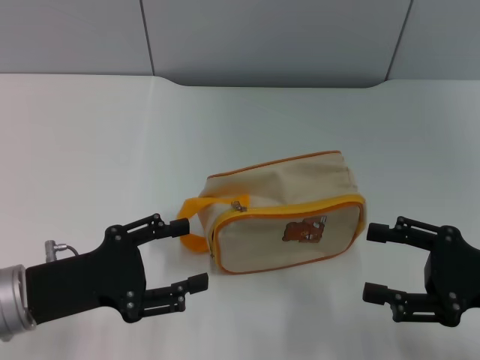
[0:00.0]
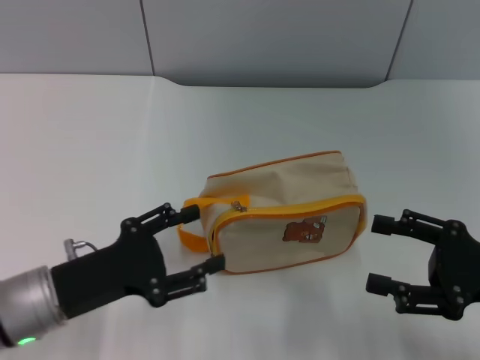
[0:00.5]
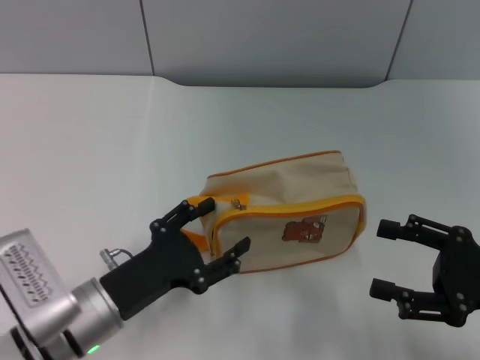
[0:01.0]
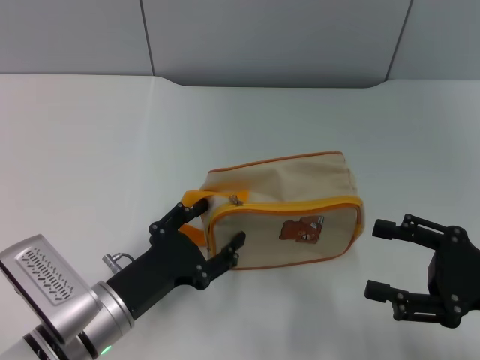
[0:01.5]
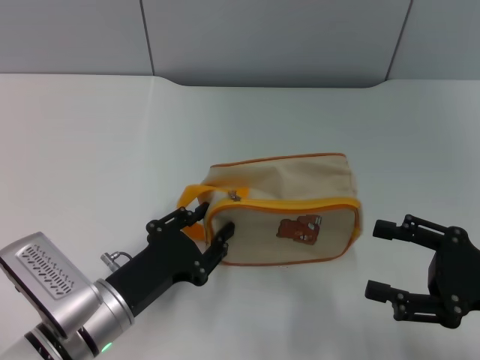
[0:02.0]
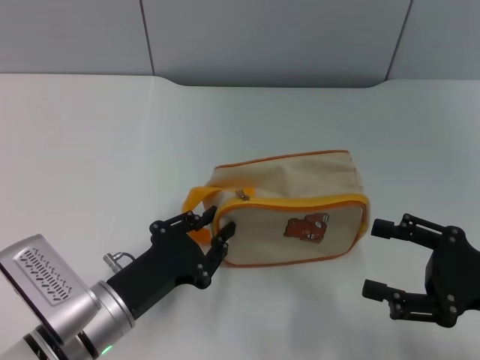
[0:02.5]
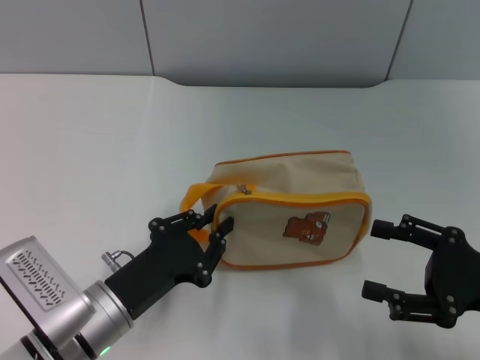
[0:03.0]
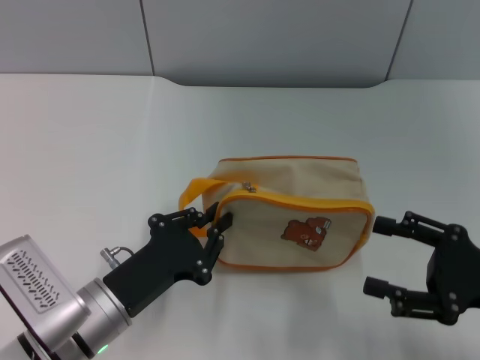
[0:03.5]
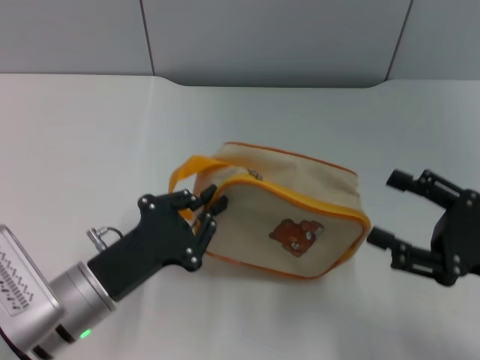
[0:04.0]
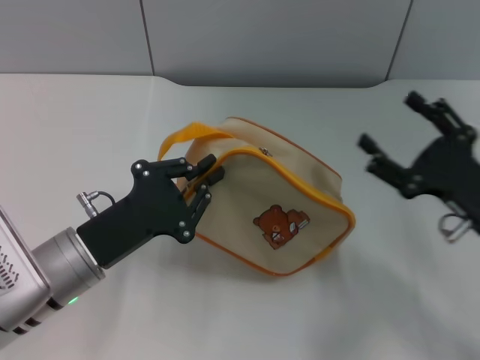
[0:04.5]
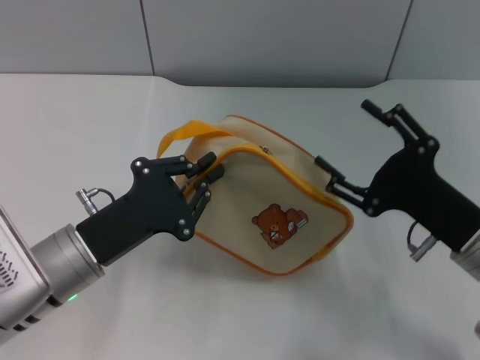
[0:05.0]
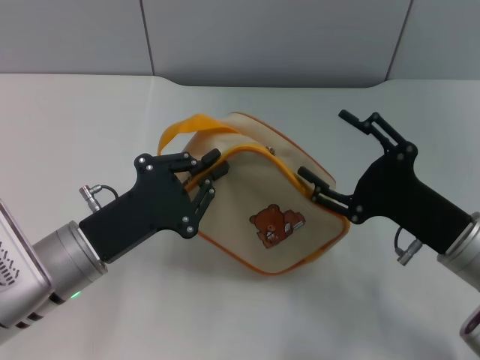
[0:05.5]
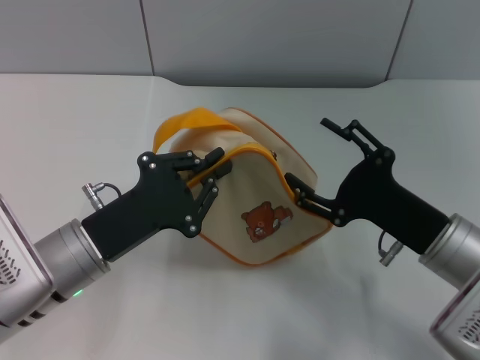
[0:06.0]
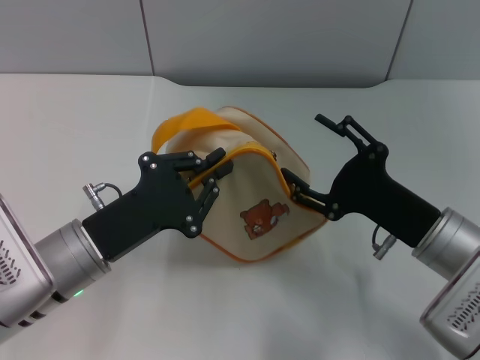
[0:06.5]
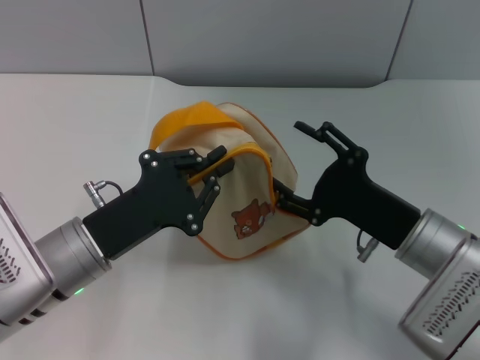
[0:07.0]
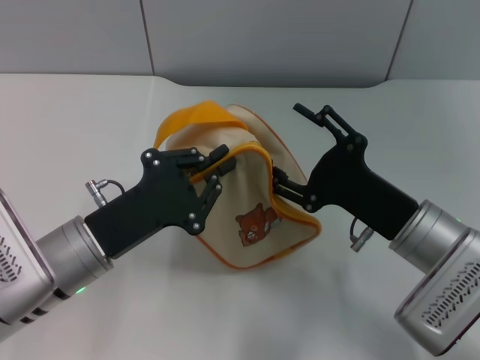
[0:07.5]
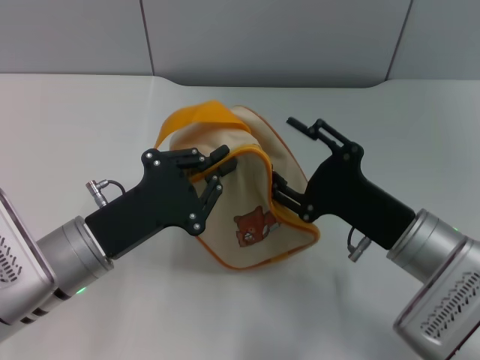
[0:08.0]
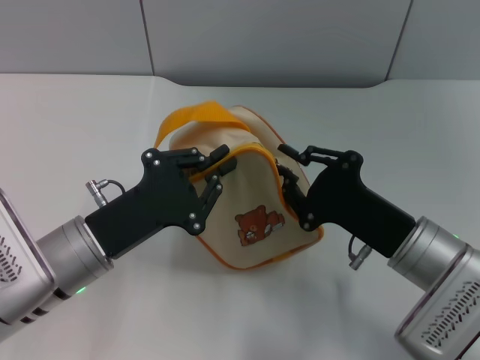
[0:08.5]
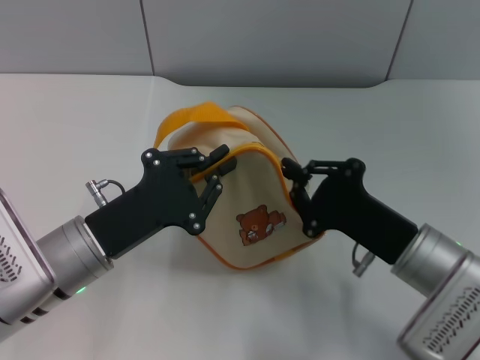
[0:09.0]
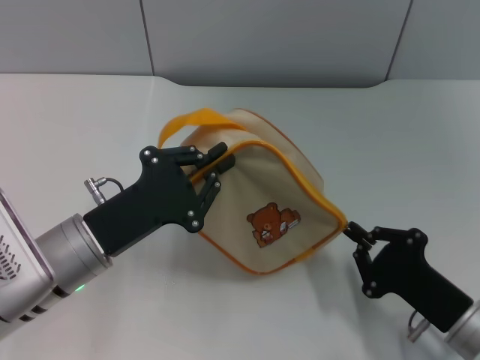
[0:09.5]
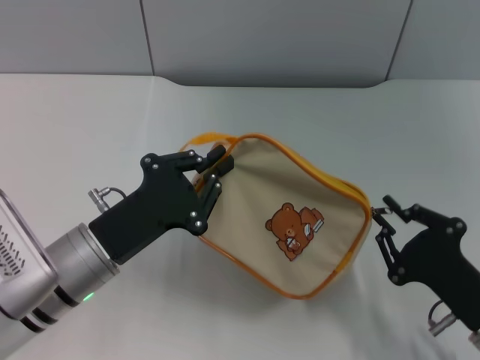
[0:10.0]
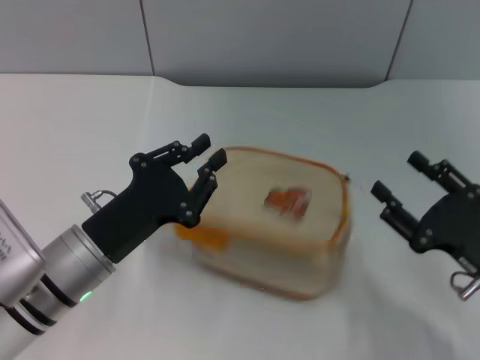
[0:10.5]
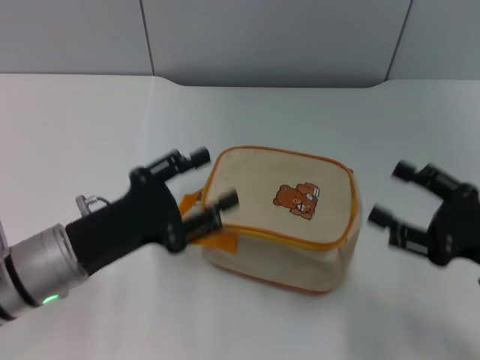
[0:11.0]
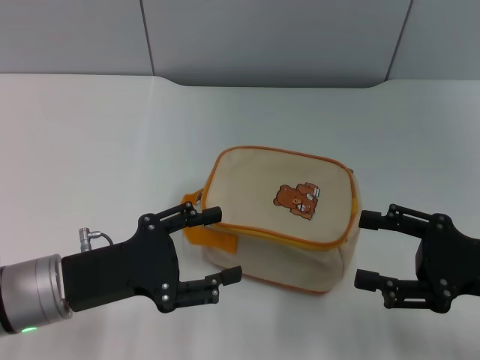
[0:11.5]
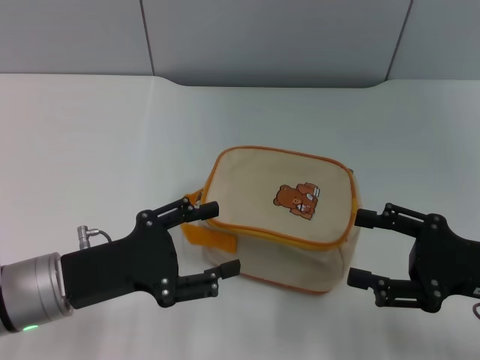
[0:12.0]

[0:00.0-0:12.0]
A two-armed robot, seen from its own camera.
Step, 0:00.0 to 0:04.5: Pick up the bag with left gripper.
Step, 0:05.0 to 0:10.0: Unzip the zipper of bag with right gripper.
0:00.0 to 0:02.0: The left gripper moves to the right and downward, roughly 10 cm.
0:02.0 to 0:04.0: The left gripper closes its fingers.
0:04.0 to 0:06.0: The right gripper goes roughly 10 cm to the left.
0:06.0 to 0:08.0: There are only small adjustments of the grippers.
0:08.0 to 0:10.0: The right gripper moves backward and to the right, approximately 10 cm, and closes up.
0:10.0 to 0:12.0: The left gripper opens. The right gripper is displaced upward and forward by roughly 10 cm, and opens.

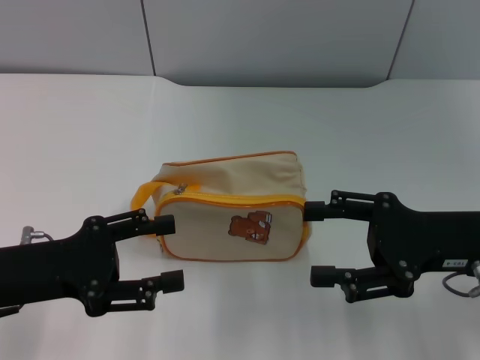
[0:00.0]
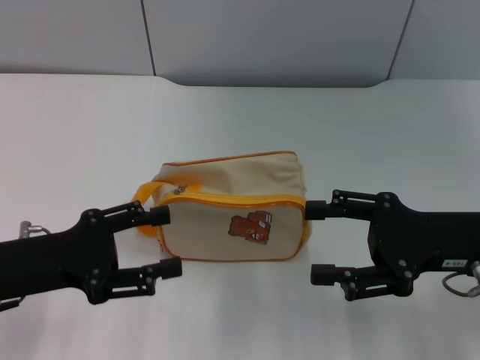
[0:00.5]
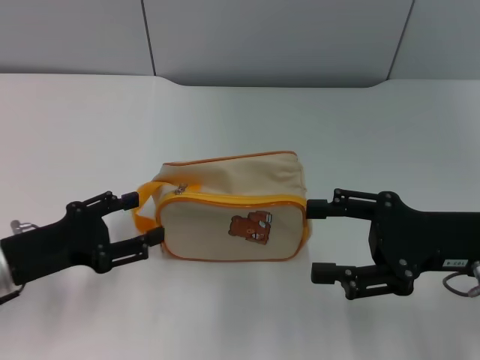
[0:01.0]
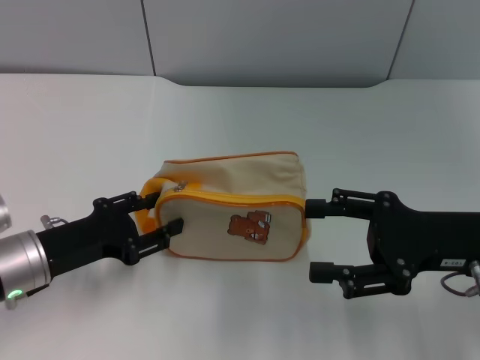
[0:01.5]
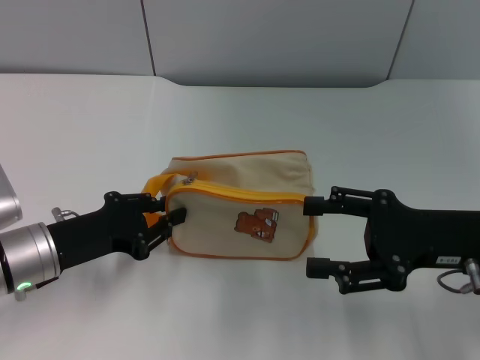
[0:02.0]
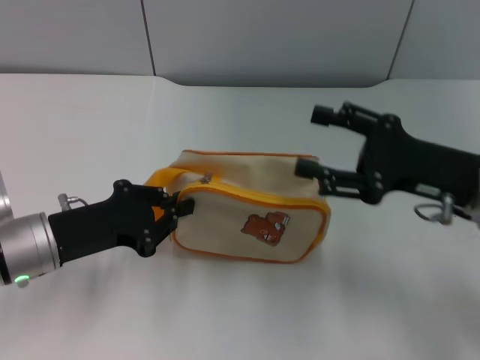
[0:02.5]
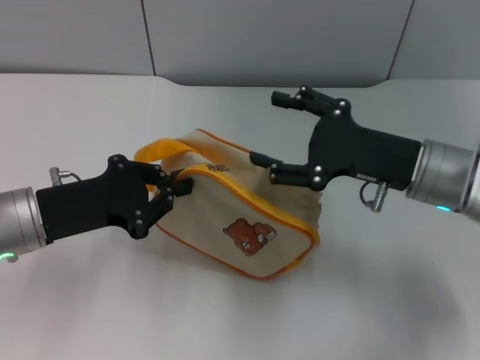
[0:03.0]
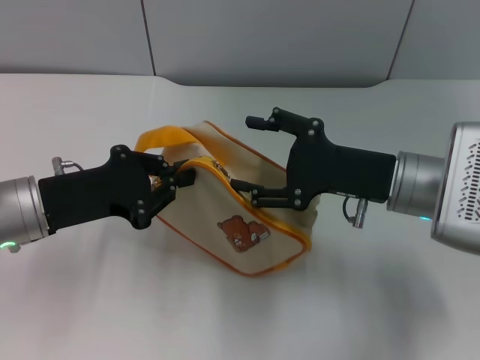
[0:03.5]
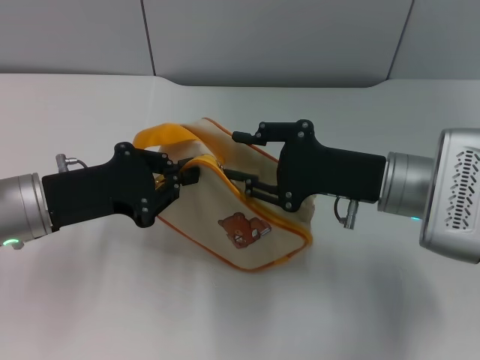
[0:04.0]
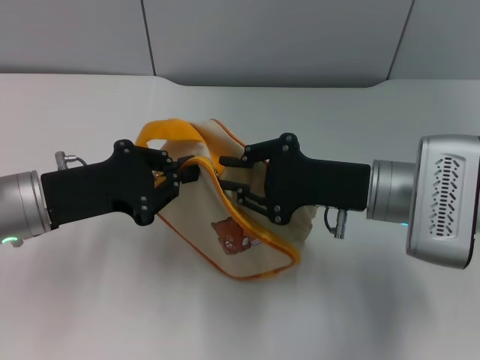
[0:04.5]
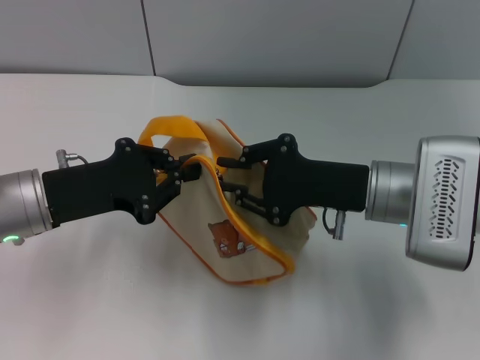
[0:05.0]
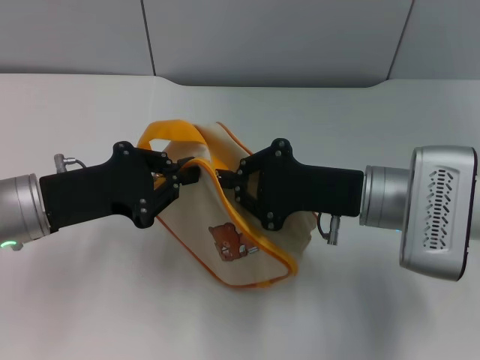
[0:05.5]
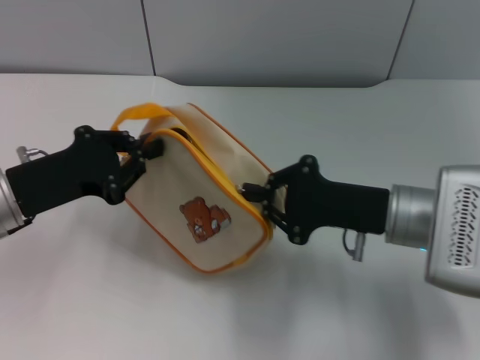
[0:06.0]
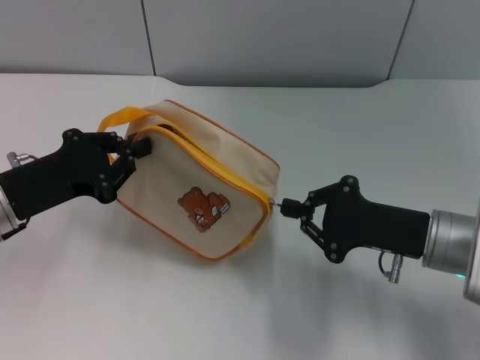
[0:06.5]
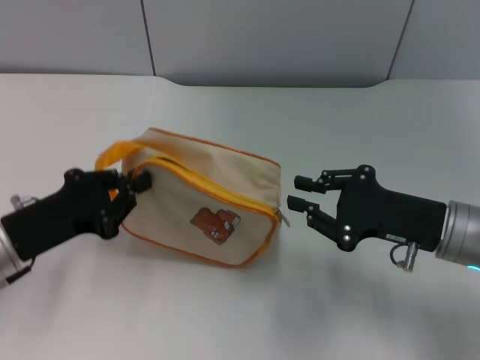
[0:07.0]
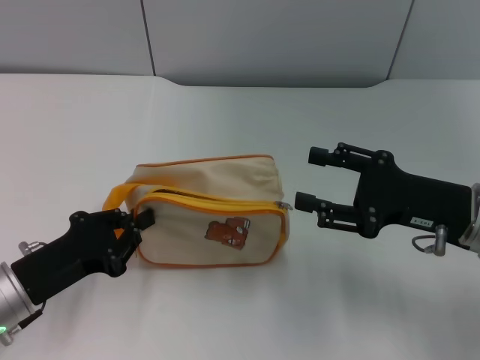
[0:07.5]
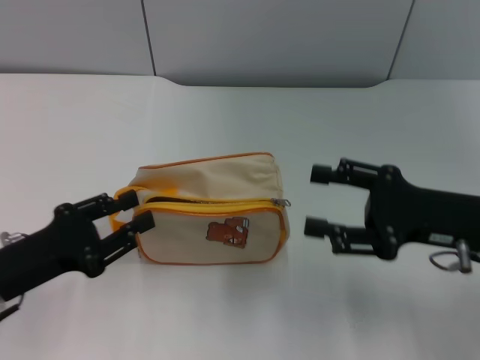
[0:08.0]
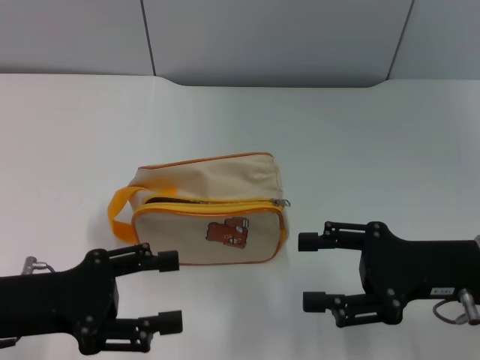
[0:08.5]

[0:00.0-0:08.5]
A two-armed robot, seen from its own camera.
Step, 0:00.0 to 0:02.5: Pick up the bag with left gripper.
Step, 0:03.0 to 0:06.5: Unzip the zipper of bag with right gripper.
Step, 0:07.0 to 0:08.0: Place the bag on the table with left gripper.
0:00.0 to 0:02.0: The left gripper ends up roughly 5 cm from where it was, and closes its fingers.
0:02.0 to 0:04.0: The right gripper shifts approximately 10 cm to the left and forward. The left gripper goes approximately 5 cm upward, and closes its fingers.
0:04.0 to 0:06.5: The right gripper shifts by about 5 cm, and closes up.
0:06.5 to 0:08.5: The right gripper opens up. Meanwhile the left gripper is displaced backward by roughly 5 cm, and opens up.

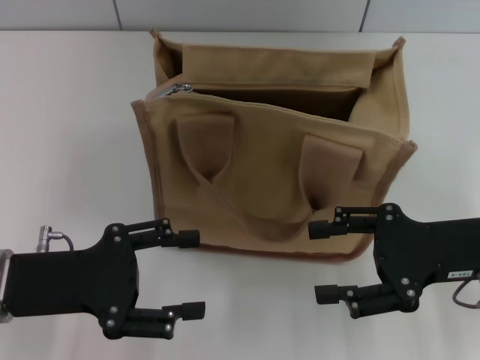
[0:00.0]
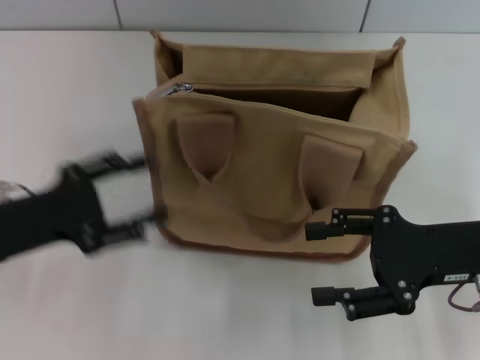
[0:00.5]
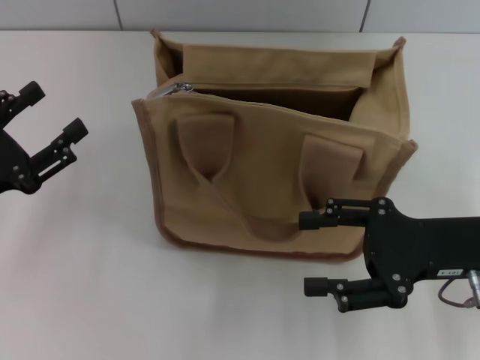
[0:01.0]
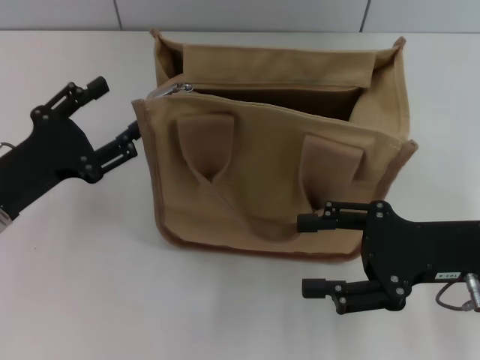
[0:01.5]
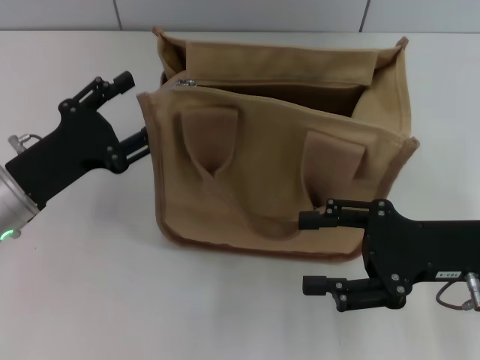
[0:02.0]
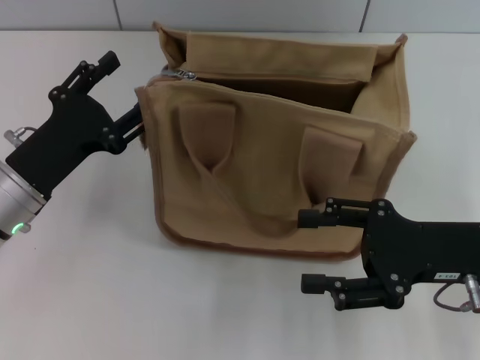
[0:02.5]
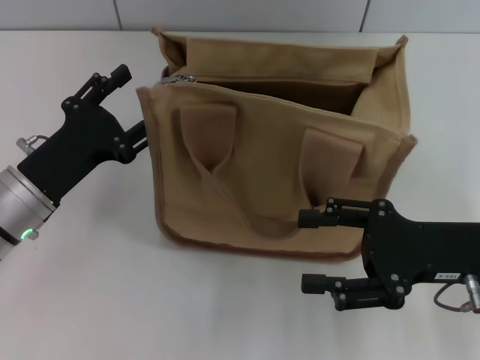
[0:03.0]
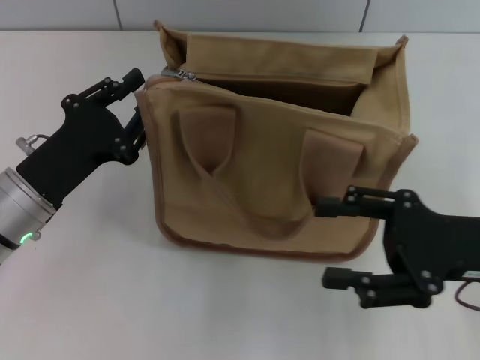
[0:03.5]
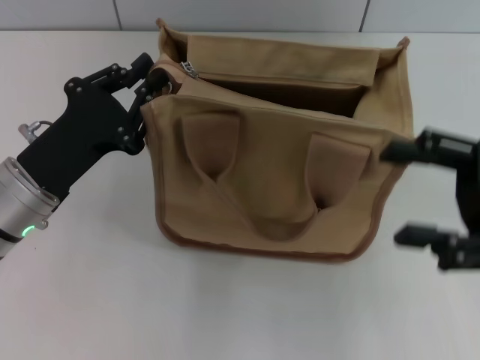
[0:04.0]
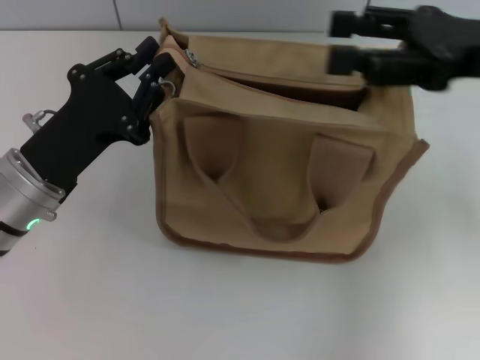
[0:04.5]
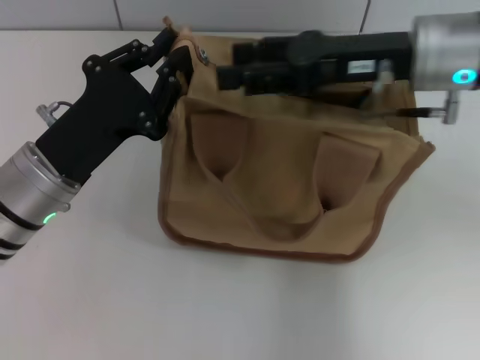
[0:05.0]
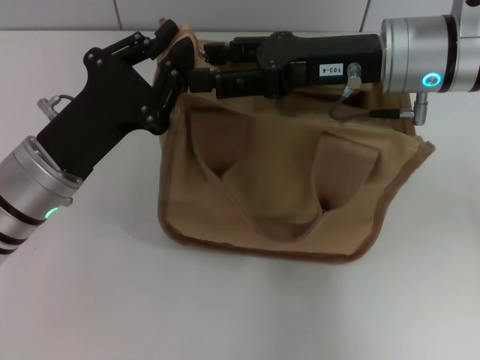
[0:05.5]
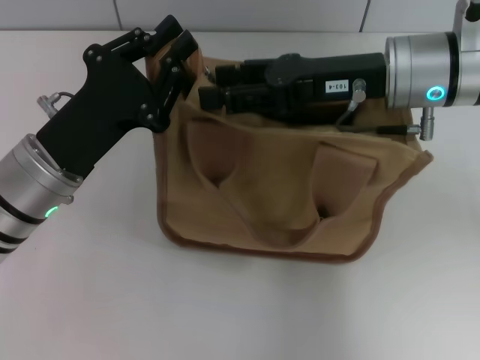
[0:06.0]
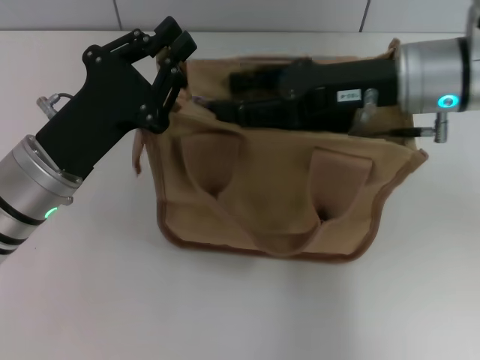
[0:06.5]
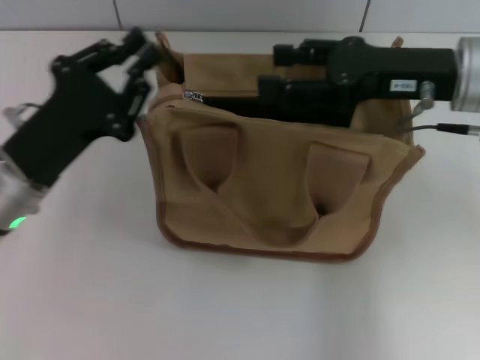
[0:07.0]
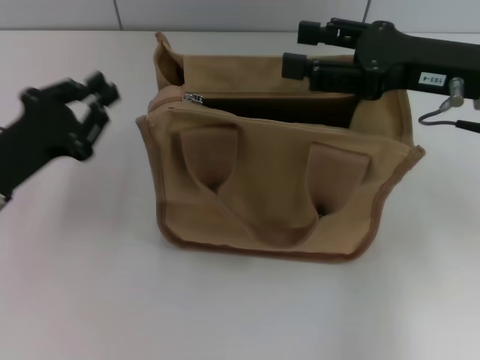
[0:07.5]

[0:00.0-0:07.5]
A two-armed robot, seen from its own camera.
0:00.0 to 0:02.0: The left gripper travels forward by some 5 cm.
0:02.0 to 0:04.0: The left gripper closes its fingers. The right gripper moves approximately 5 cm.
0:04.0 to 0:05.5: The right gripper shifts some 20 cm to the left and forward.
0:05.5 to 0:07.5: The left gripper goes approximately 5 cm to the left. Meanwhile the right gripper is displaced to the right by about 10 cm.
